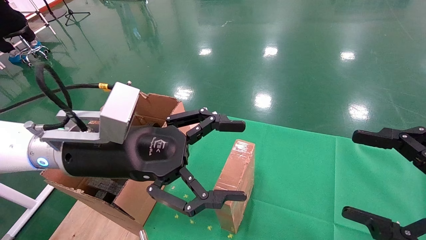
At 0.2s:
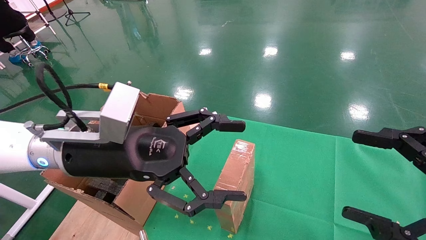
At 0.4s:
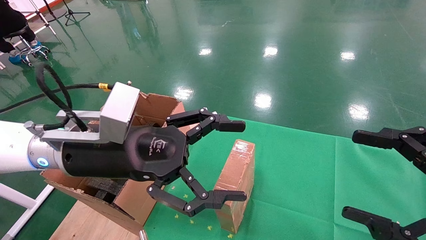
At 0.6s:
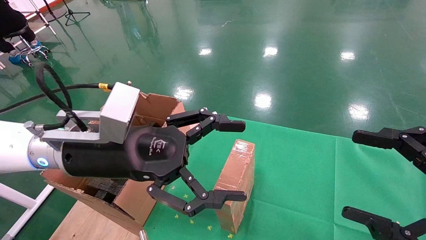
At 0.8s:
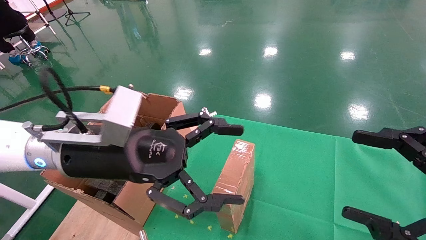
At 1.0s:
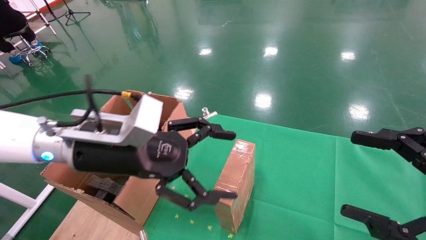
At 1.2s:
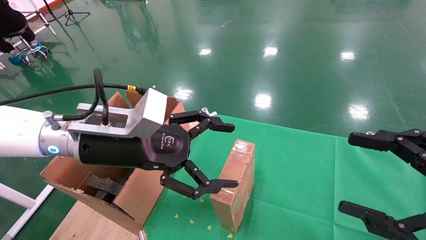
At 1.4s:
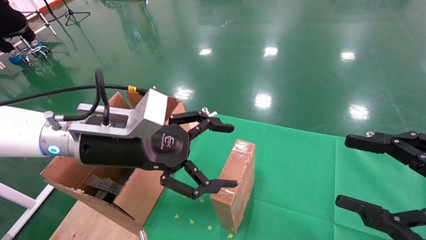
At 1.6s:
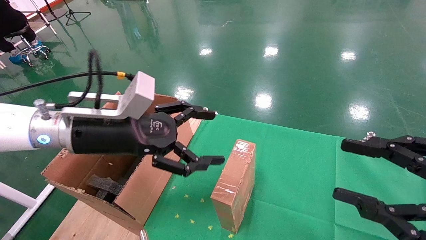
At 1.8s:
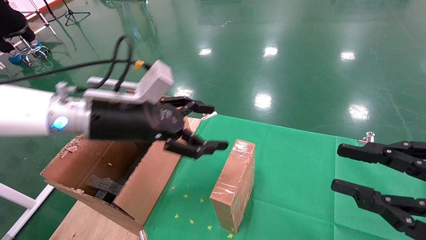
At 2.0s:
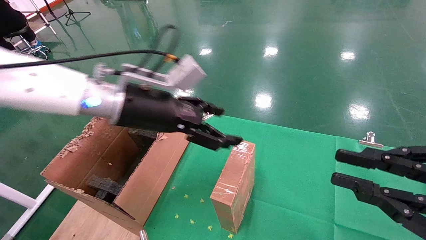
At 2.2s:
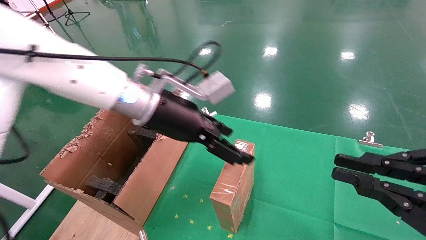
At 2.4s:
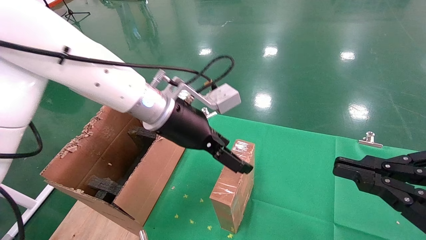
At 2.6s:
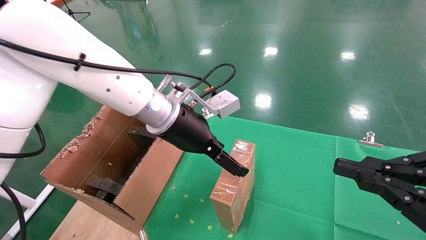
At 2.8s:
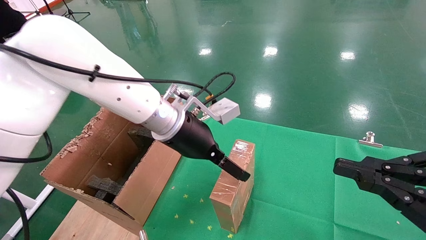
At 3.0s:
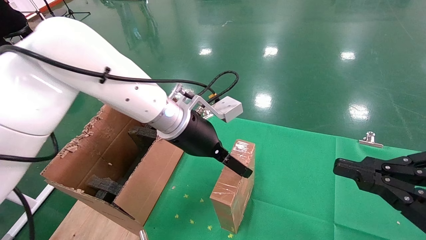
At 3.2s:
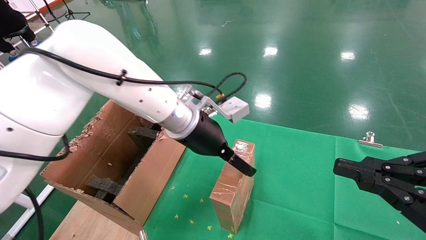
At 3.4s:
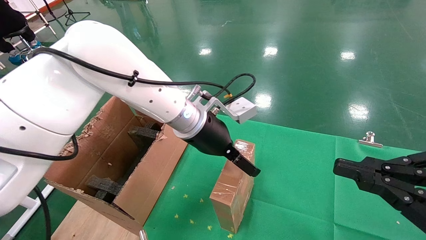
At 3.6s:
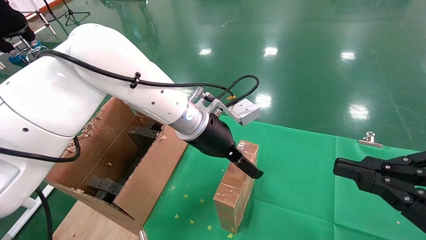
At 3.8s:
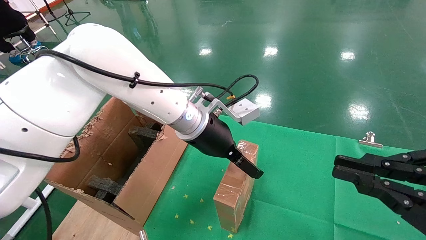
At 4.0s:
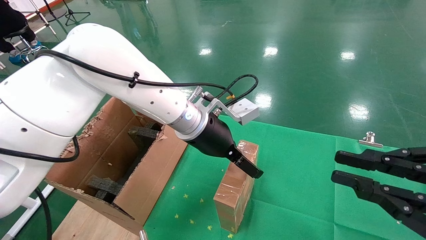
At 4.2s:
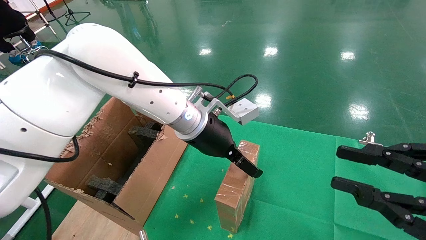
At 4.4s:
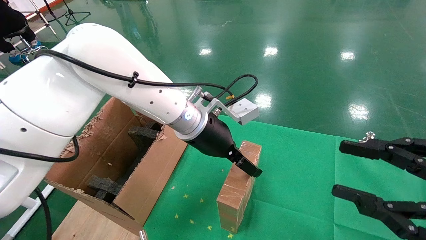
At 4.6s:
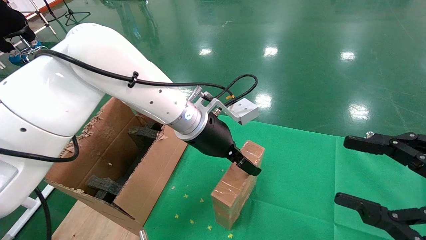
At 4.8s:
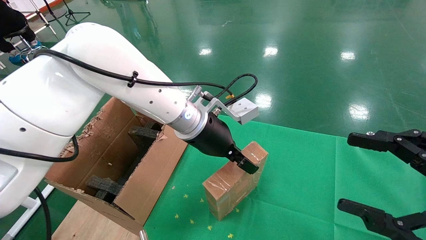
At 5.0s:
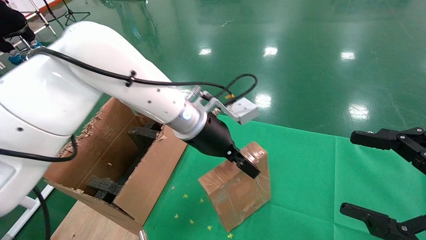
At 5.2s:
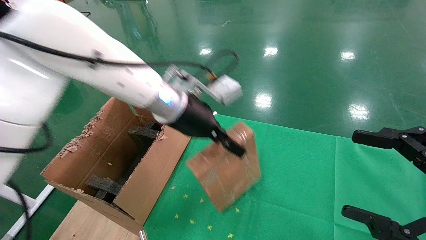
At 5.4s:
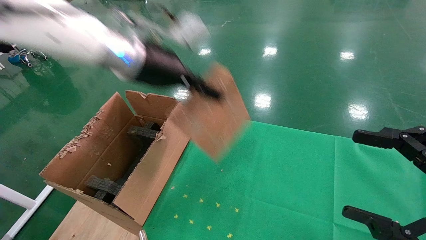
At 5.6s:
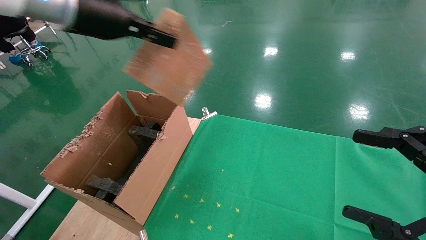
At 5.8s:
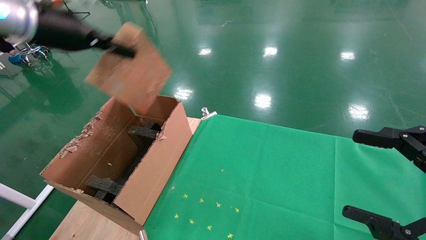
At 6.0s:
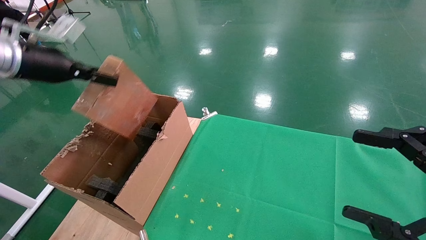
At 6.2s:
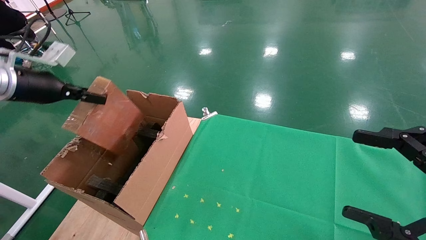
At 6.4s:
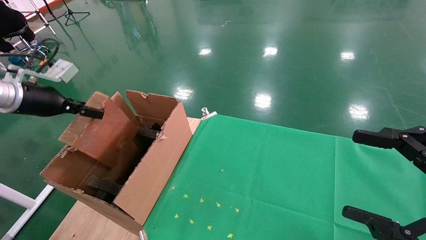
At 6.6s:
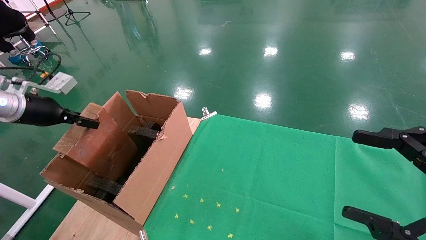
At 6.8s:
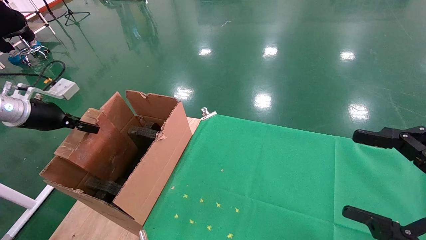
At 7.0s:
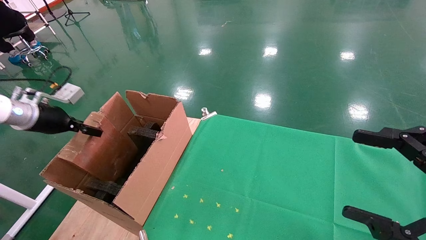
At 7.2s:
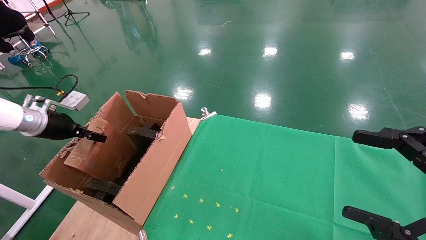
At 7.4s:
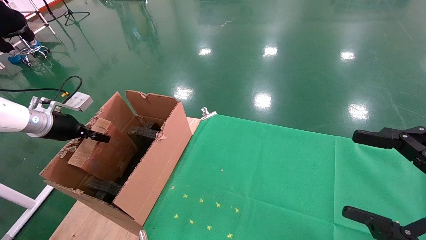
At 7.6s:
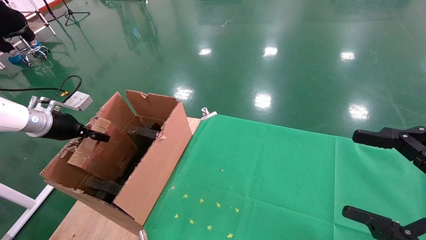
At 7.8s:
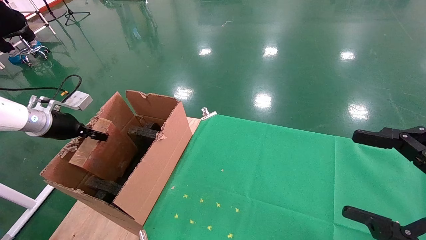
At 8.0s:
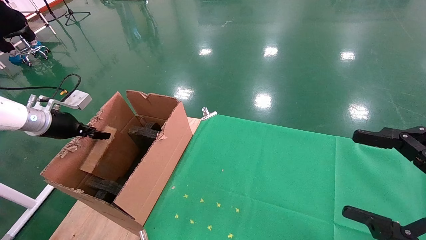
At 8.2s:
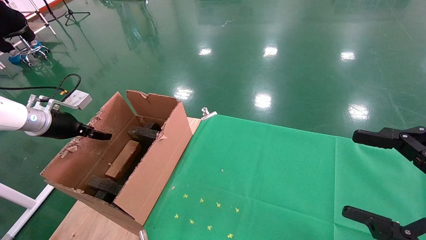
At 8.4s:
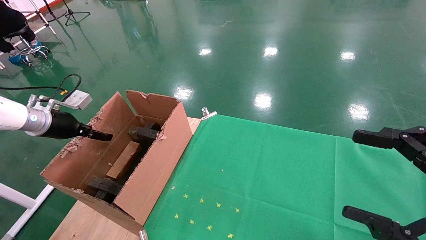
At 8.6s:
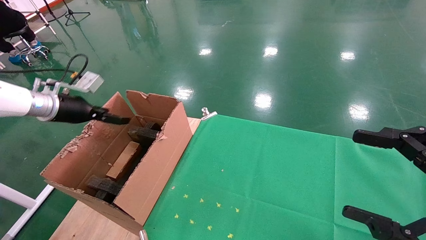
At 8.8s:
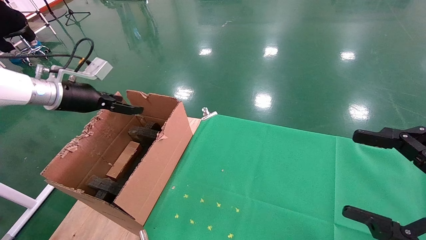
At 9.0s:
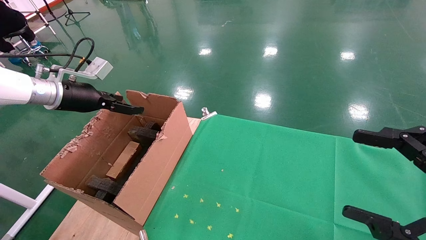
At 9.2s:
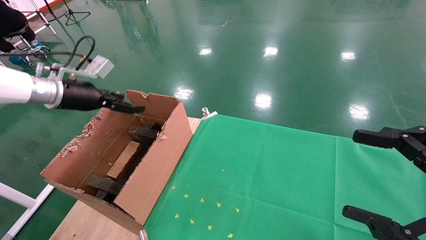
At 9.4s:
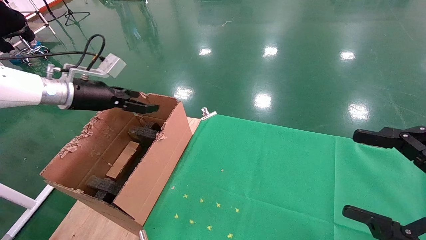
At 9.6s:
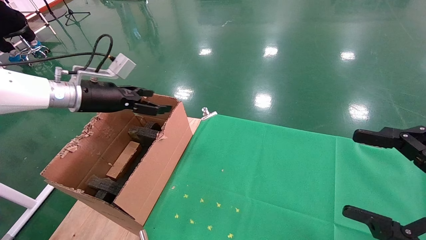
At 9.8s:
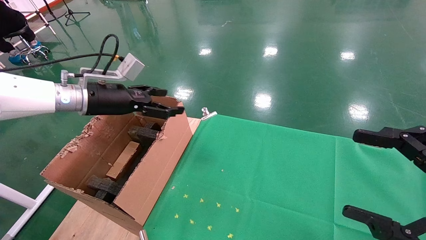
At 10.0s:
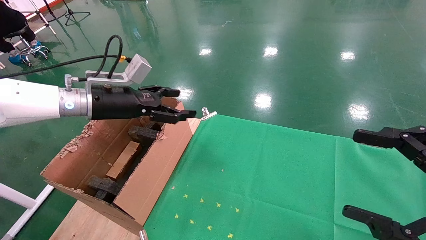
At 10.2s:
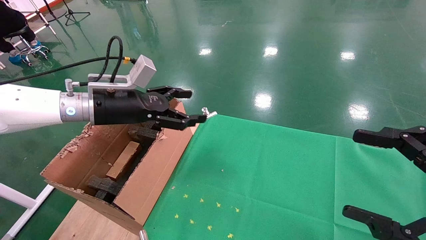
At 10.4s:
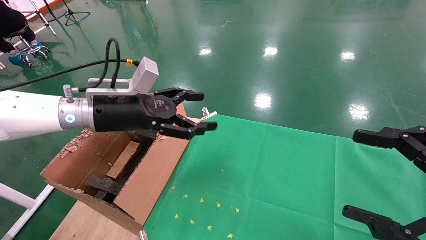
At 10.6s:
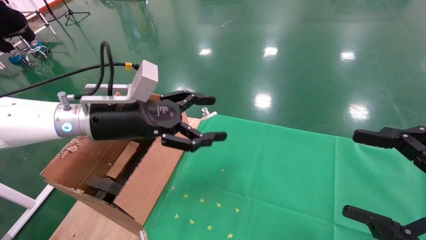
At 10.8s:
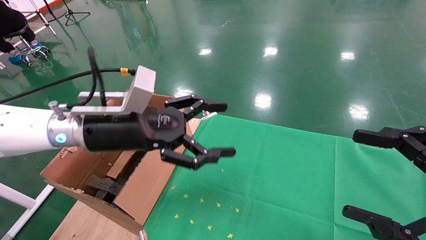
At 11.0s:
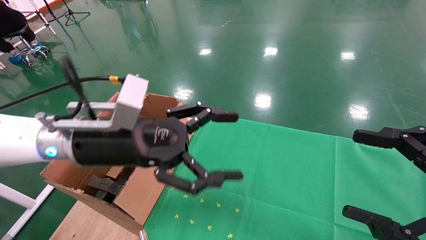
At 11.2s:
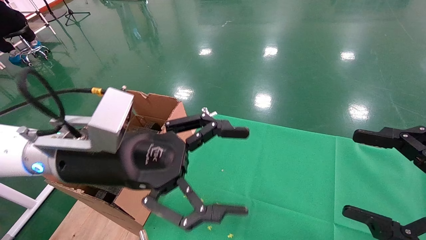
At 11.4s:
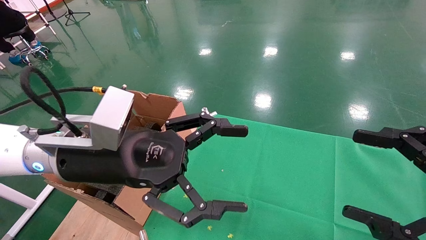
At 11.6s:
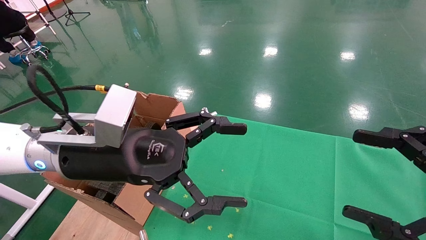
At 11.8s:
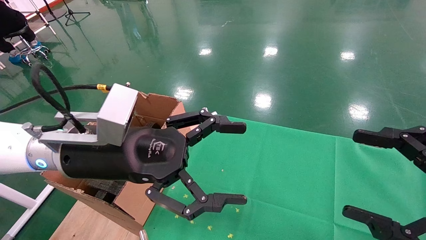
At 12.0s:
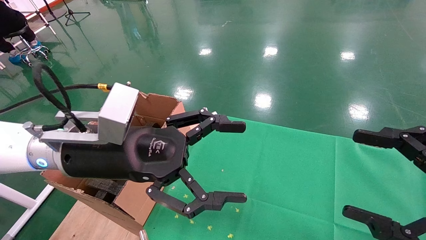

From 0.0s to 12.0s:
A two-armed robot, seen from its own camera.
Task of the whole recording: using a robotic arm to pick up a cardboard box and palace it the carton.
Step, from 1.0s to 4.8s: Pick up the mouse and the power cord paper box.
Step, from 5.0s to 8.8s: Place the mouse and the power cord paper box into the container.
From 1.6s to 3.0s: The left gripper moves to the right and forward, about 15 cm. Meanwhile the right gripper closes up.
From 3.0s to 4.4s: The right gripper opens its fingers.
From 4.4s to 6.0s: The right gripper opens its fingers; the left gripper heads to the left, covering some 30 cm, and closes.
From 6.0s to 7.6s: The left gripper heads downward and to the left, covering some 20 cm.
From 7.6s to 9.0s: The left gripper travels upward and to the right by about 10 cm, and opens.
From 9.0s to 10.4s: The left gripper goes roughly 15 cm to the right.
From 10.4s to 12.0s: The left gripper travels backward and to the right by about 10 cm.

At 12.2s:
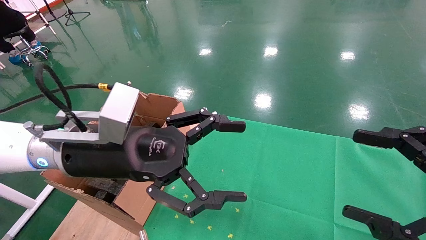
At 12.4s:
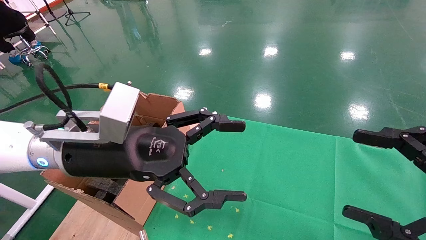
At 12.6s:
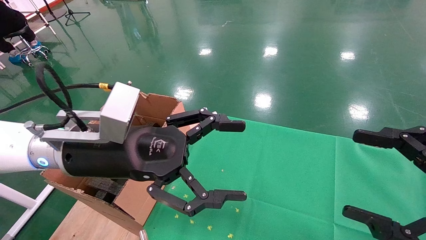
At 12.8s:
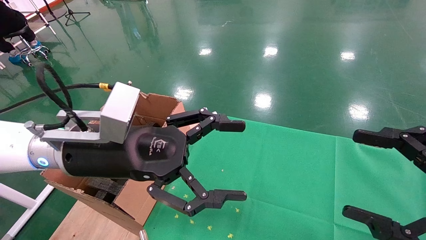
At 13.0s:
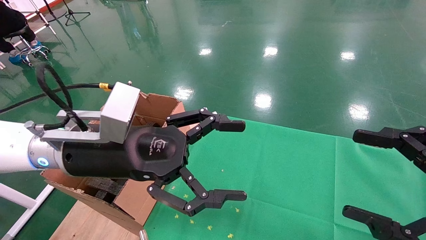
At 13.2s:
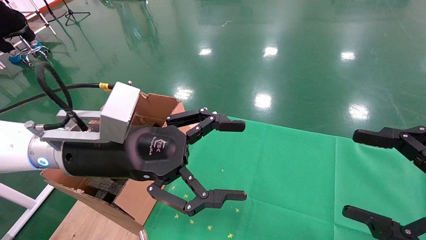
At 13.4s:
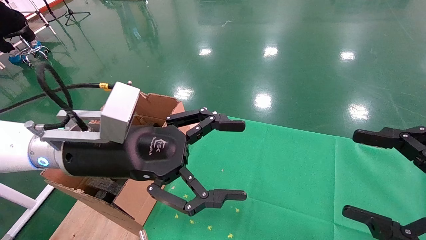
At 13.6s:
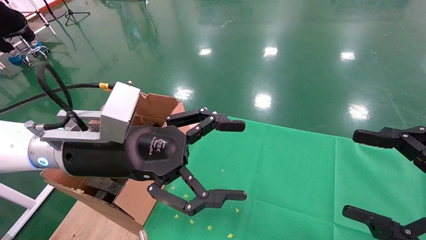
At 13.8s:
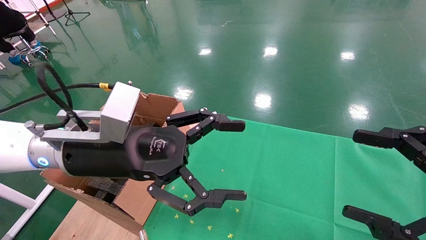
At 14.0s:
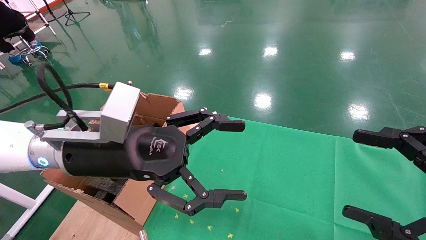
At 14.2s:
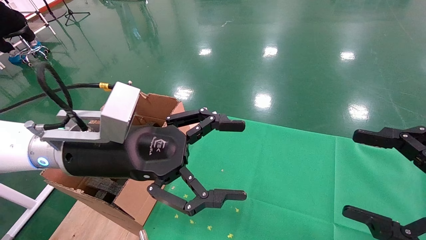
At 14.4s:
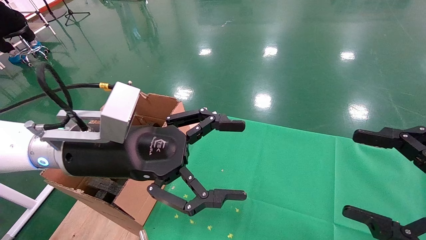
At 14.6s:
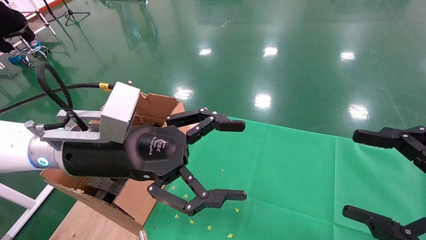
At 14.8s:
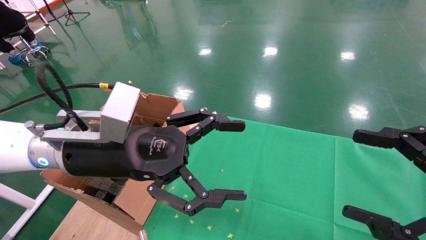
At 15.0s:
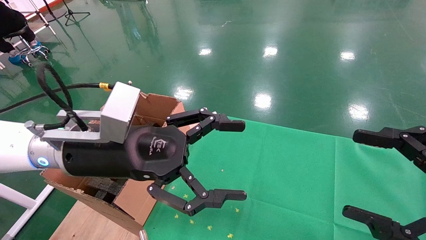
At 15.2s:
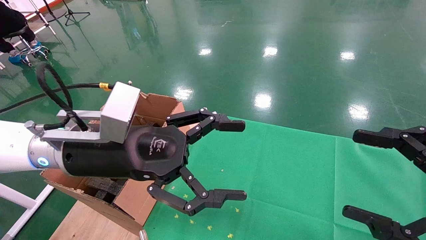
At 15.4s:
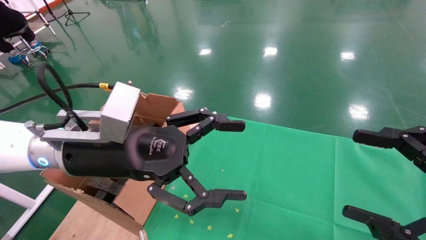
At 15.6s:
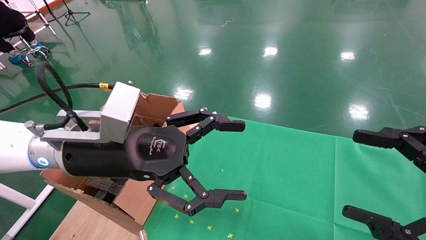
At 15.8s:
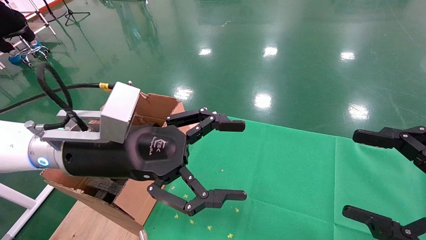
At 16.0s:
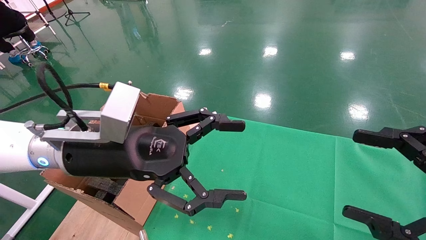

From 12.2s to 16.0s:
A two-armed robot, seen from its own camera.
Task of the whole recording: using a robotic arm to pick up a cardboard box and palace it the carton.
From 12.2s to 16.0s: Neither gripper changes place.
